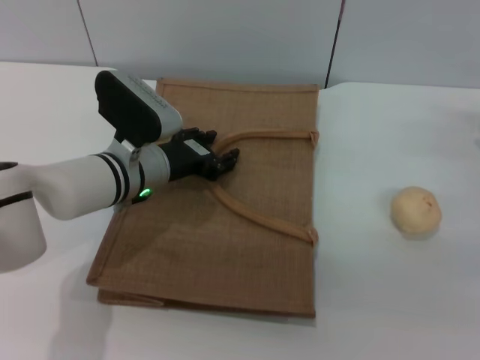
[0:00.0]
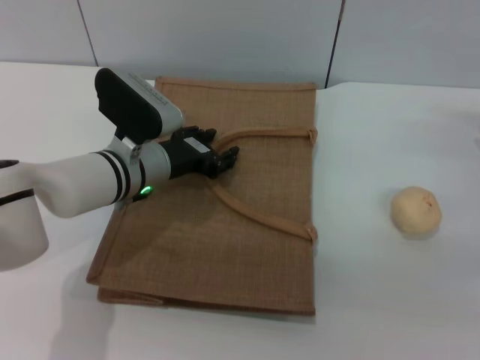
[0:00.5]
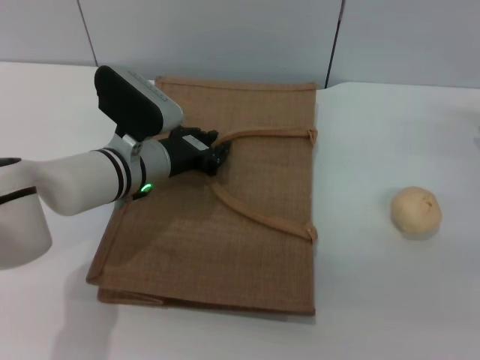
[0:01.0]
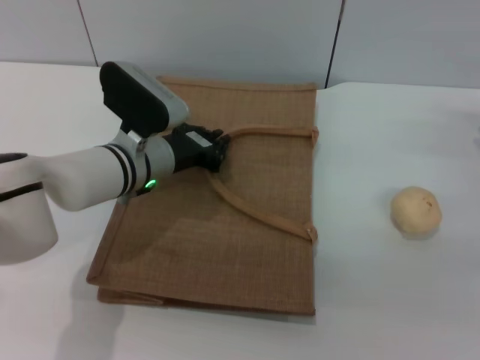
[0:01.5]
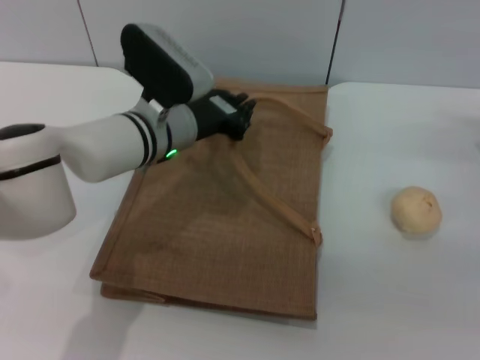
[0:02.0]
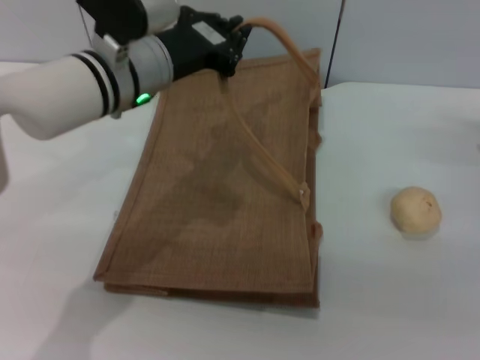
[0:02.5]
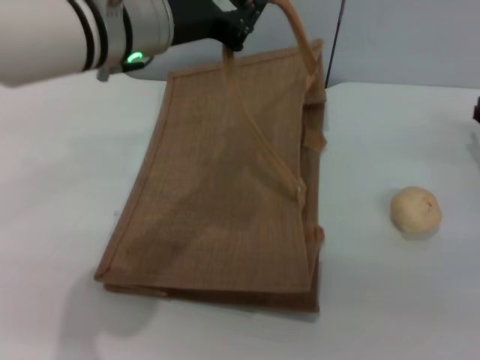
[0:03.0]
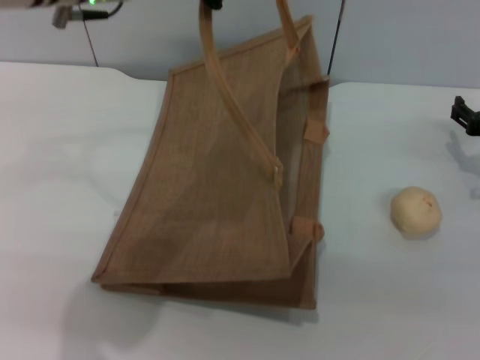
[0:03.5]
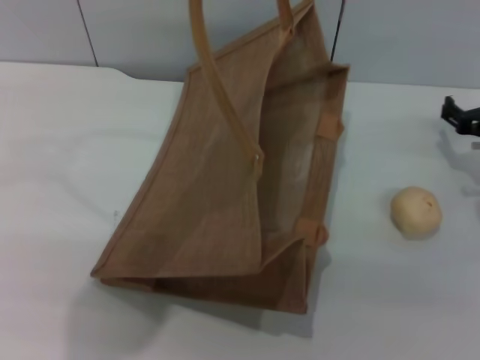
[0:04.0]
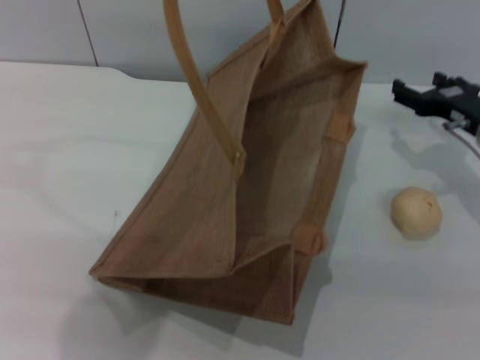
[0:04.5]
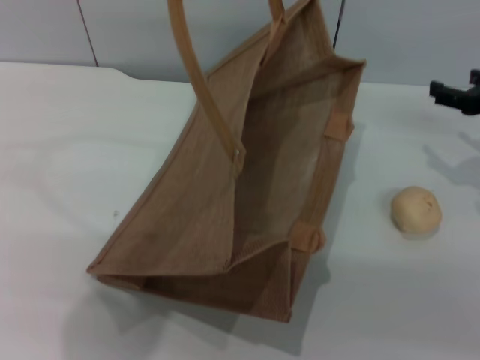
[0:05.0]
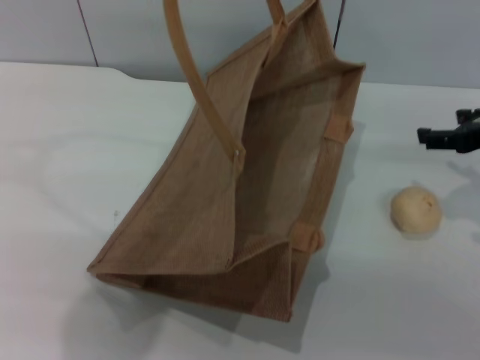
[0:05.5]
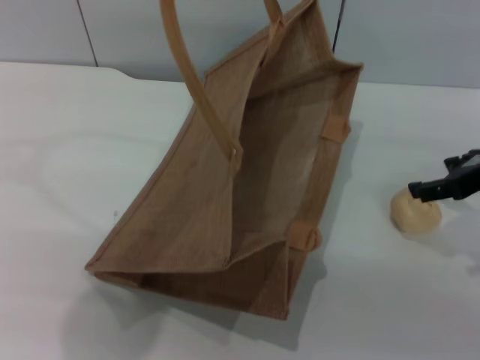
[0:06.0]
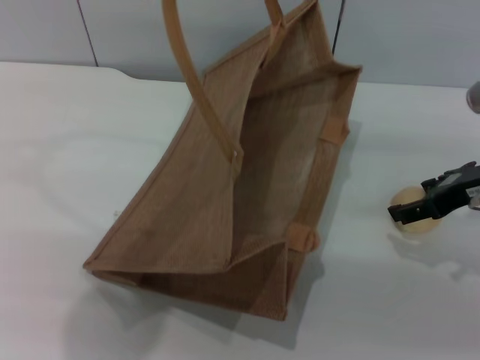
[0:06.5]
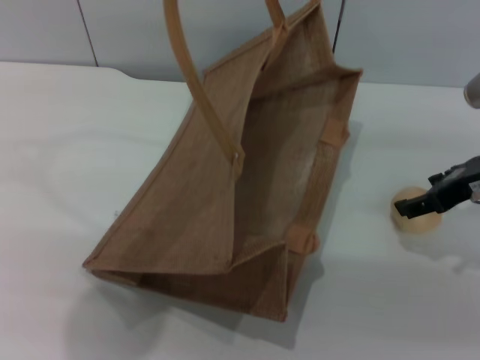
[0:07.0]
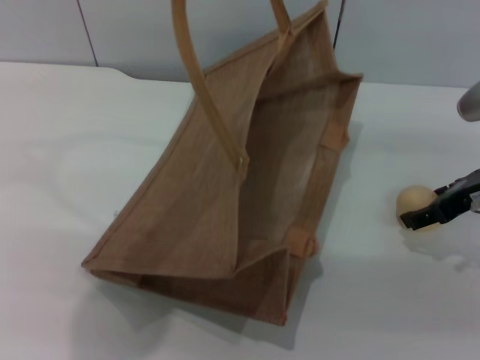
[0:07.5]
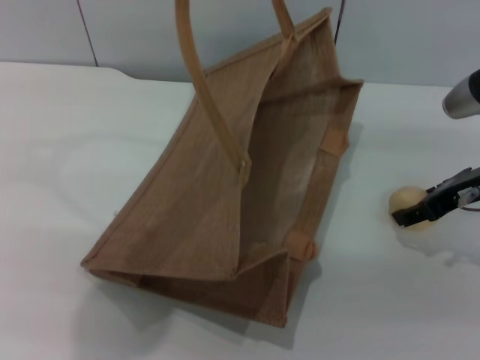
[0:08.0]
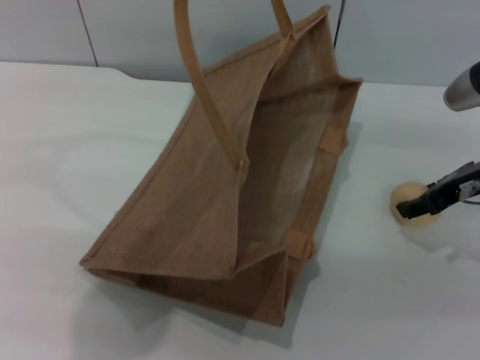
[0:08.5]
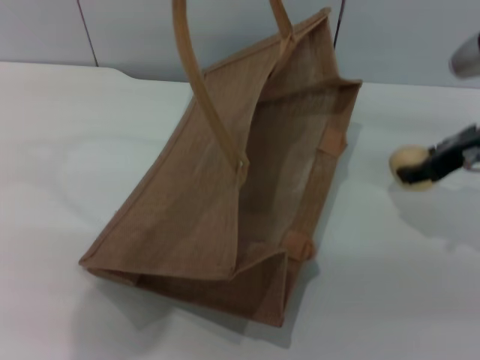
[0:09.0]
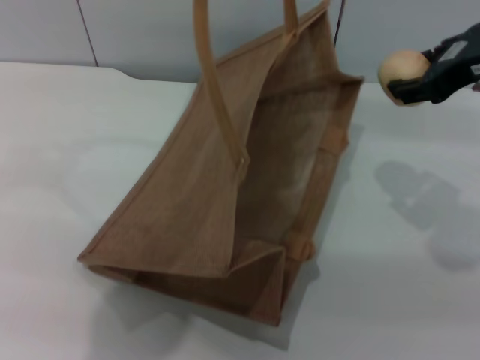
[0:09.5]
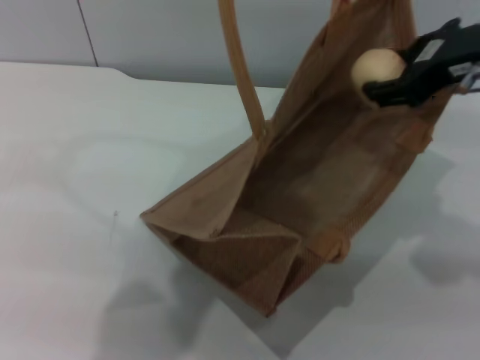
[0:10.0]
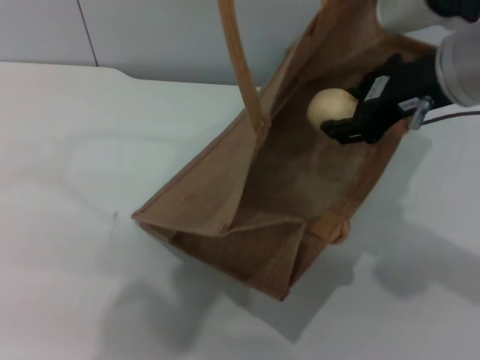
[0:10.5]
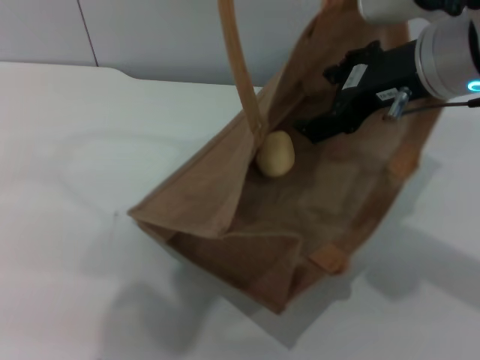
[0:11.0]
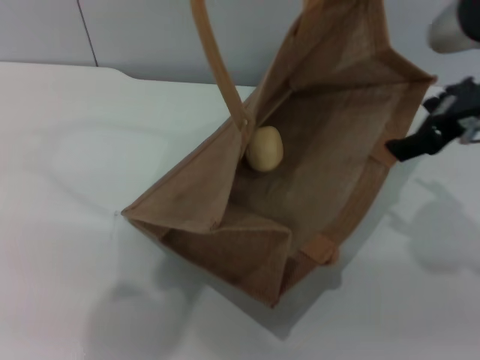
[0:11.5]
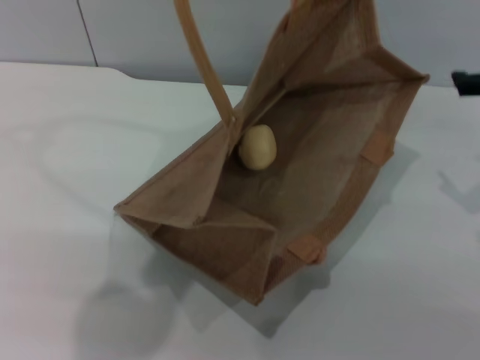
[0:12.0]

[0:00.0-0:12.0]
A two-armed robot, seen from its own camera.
Task of the whole recording: pick up the egg yolk pastry from the table and place it in the brown handbag.
Step, 0:00.0 to 0:02.5: Lift the woven bag with the left gripper to open it.
Step, 0:03.0 to 0:09.0: Pick up the egg yolk pastry with the right gripper.
Step, 0:09.5 to 0:11.5: Place the egg yolk pastry into the woven bag with the right gripper.
0:00.0 to 0:02.0: The left gripper moves approximately 5 cm, and closes up.
0:02.0 to 0:04.0: The left gripper travels upward by roughly 25 cm.
0:04.0 to 0:06.0: The right gripper is displaced upward by about 10 cm.
0:06.0 to 0:08.0: The grippers move only a little.
0:08.0 to 0:10.0: The right gripper is displaced upward and to the left by roughly 15 cm, and closes up.
0:10.0 to 0:12.0: The right gripper travels to the right by approximately 10 cm, and opens up.

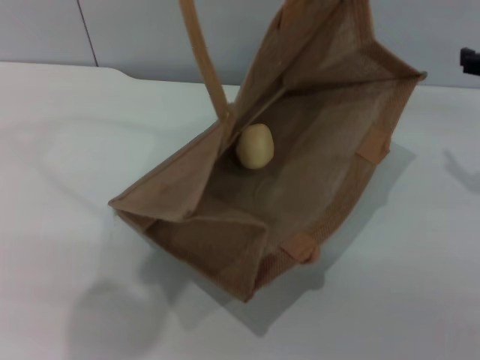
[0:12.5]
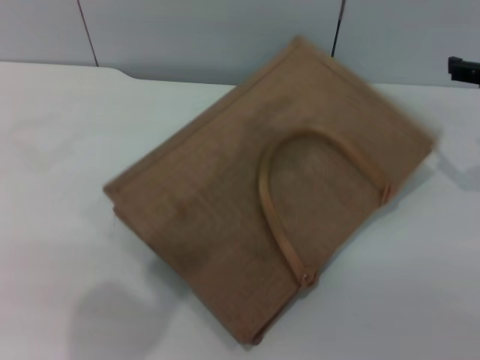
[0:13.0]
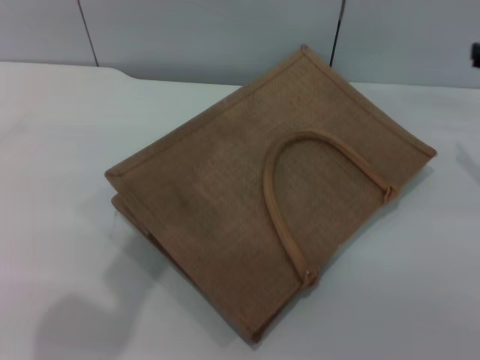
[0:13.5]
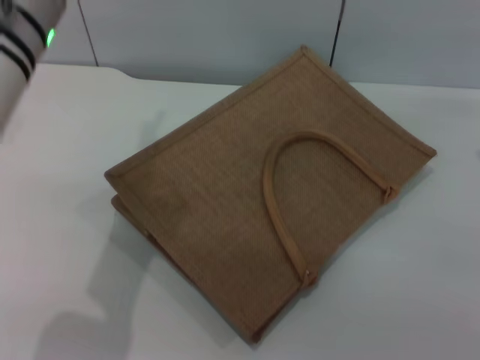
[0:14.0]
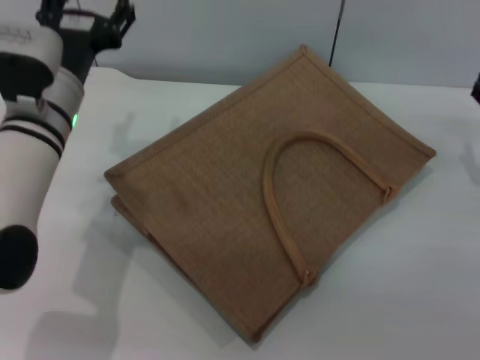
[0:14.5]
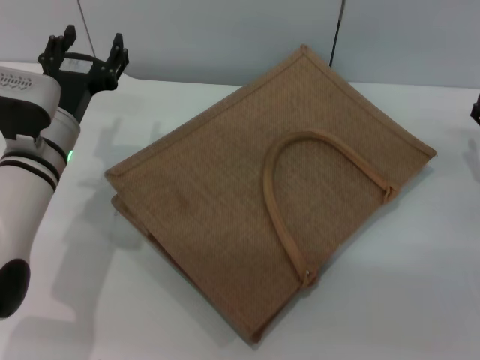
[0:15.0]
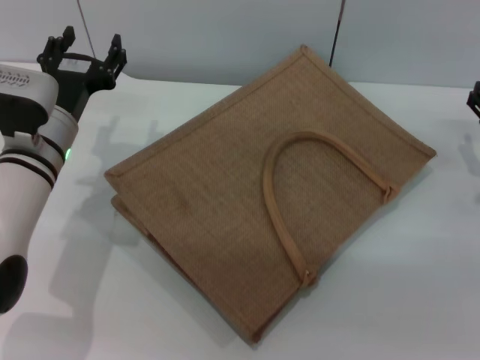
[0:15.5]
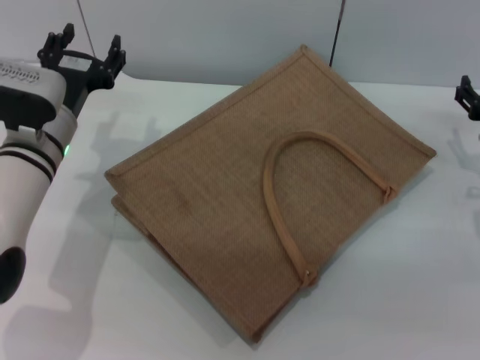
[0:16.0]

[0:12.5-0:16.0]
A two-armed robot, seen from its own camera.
Task of the whole recording: pick up the egg yolk pastry from the table and place it in the brown handbag.
Step, 0:12.5 to 0:14.0: Lower the woven bag with the left gripper to close it.
0:12.5 to 0:14.5: The left gripper travels downward by about 25 cm, and opens up. The right gripper shifts approximately 10 cm downward.
0:14.5 to 0:16.0: The left gripper shifts by about 5 cm.
